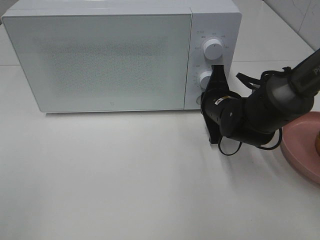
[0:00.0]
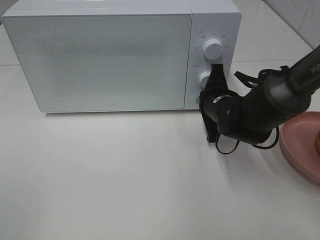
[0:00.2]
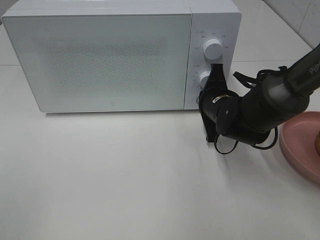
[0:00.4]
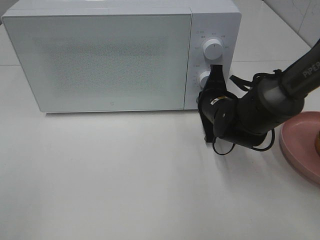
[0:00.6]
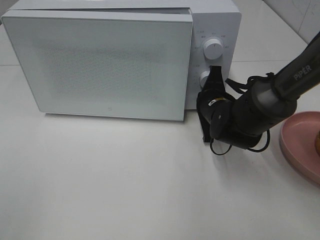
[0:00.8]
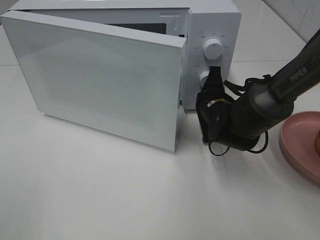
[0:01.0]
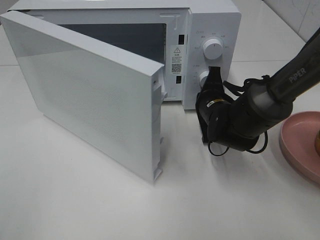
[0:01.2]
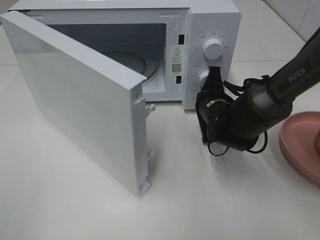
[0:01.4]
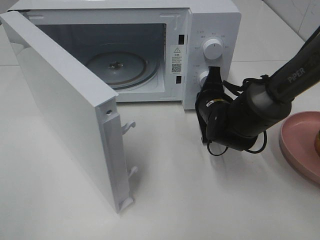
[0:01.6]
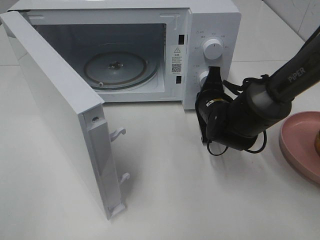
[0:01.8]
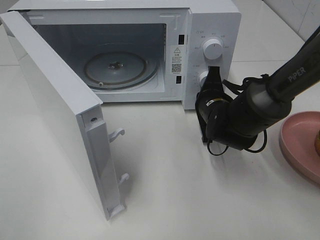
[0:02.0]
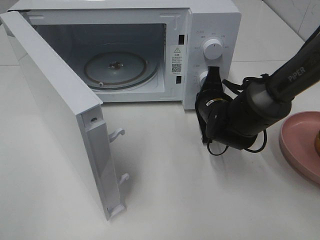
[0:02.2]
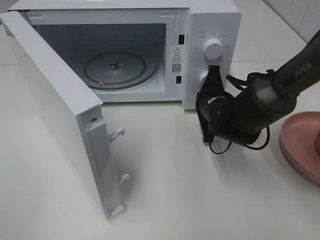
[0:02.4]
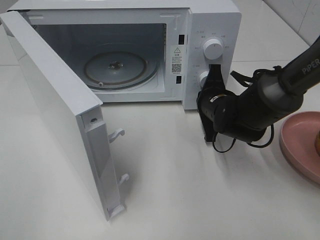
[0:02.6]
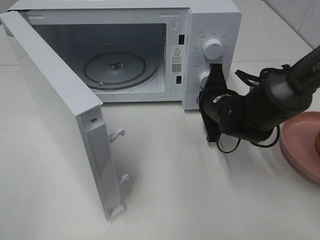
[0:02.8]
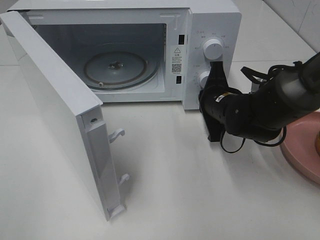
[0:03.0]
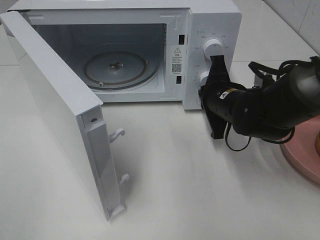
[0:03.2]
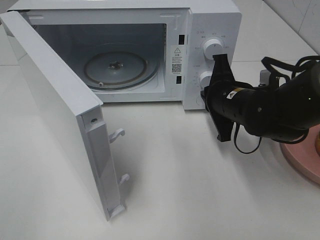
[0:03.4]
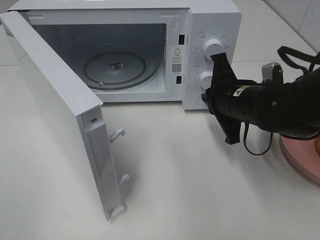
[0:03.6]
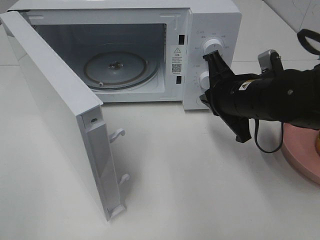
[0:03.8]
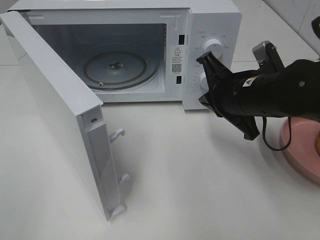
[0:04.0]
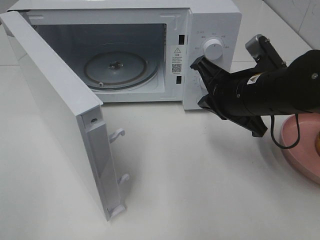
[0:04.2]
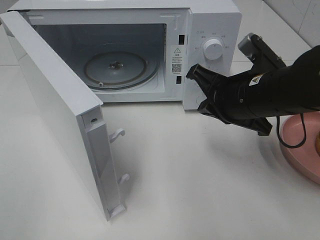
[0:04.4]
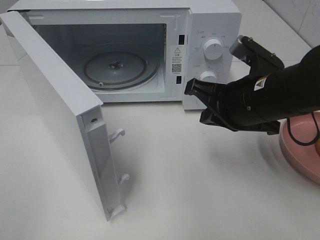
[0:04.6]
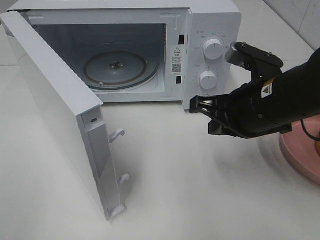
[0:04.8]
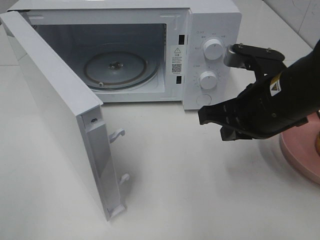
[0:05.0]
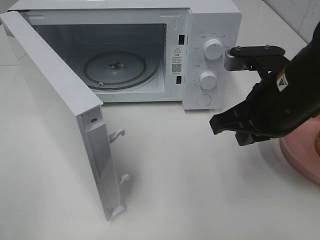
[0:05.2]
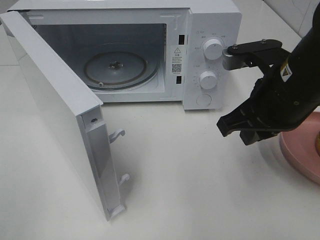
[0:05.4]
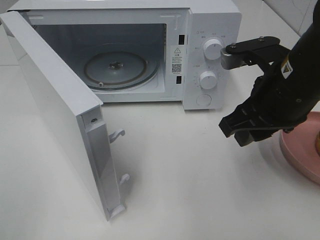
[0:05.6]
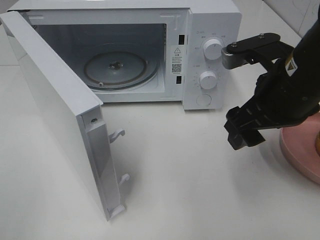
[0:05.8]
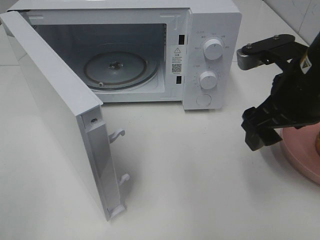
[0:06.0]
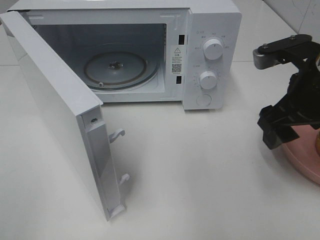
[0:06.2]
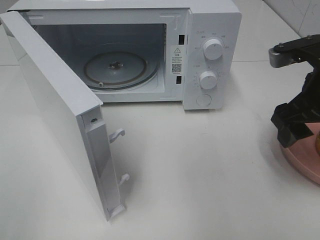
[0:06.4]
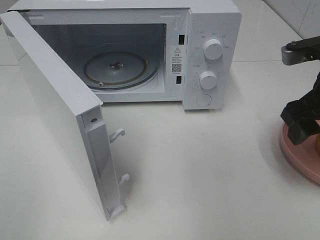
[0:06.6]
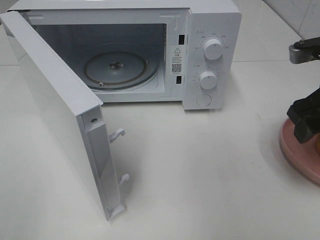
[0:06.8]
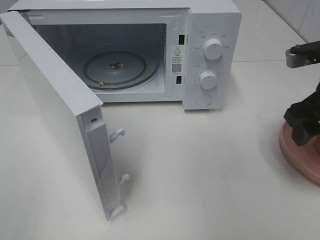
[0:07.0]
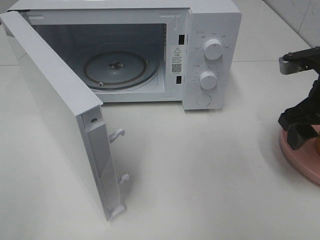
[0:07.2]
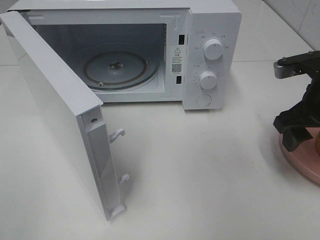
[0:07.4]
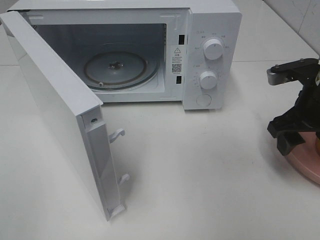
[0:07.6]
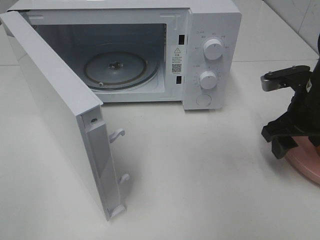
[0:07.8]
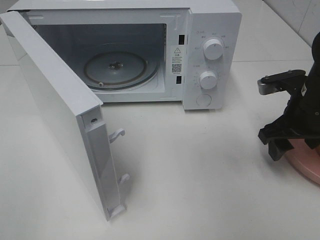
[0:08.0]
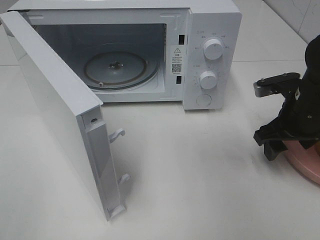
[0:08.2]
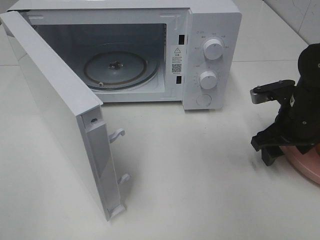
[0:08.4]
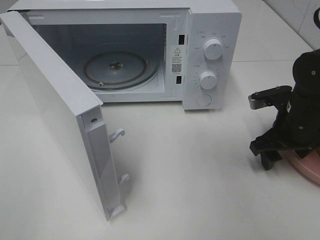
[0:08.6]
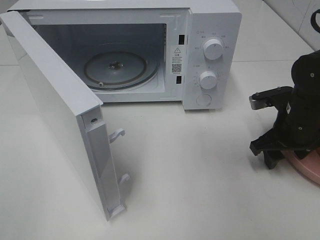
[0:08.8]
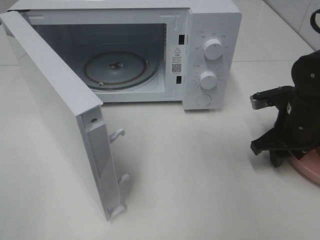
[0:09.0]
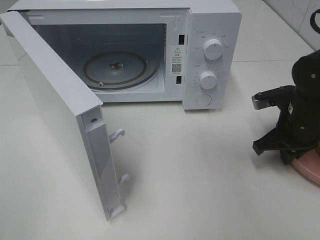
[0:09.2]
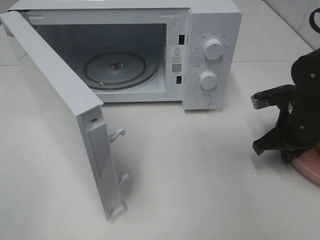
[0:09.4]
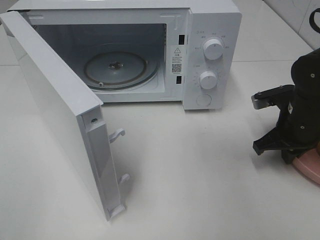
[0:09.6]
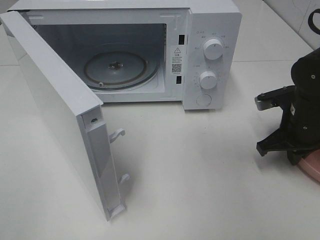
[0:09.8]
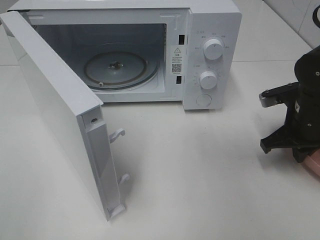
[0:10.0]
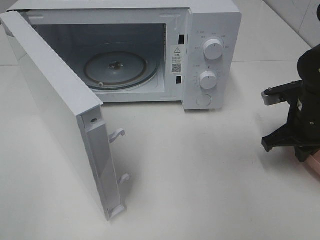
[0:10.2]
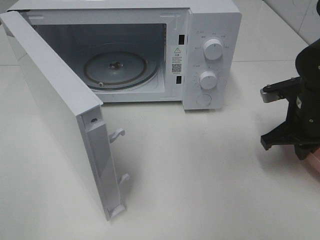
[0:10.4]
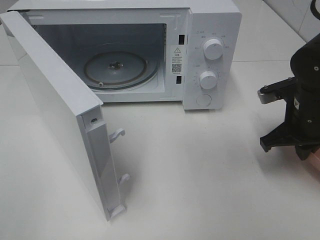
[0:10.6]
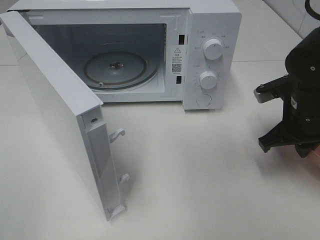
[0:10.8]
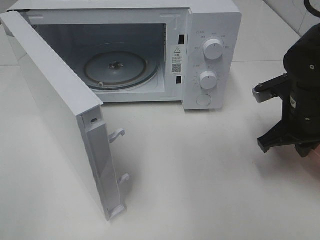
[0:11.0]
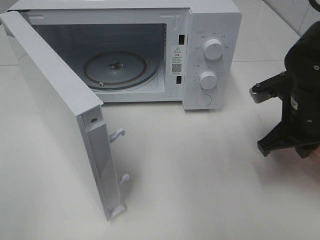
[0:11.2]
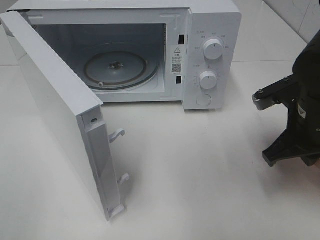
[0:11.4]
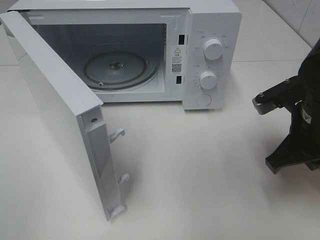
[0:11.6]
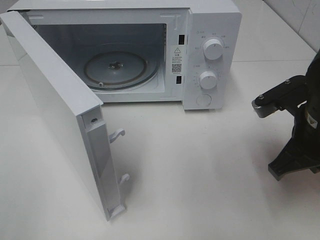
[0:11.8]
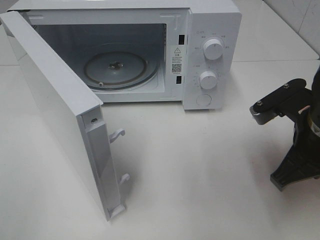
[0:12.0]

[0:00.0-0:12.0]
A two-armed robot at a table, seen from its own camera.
Task of the whole recording: Heat the burger.
Step, 0:00.0 to 0:03.0: Right hand: press the switch.
Step, 0:03.2 to 0:09.2: Right hand: grab the plate with the hamburger.
0:01.6 to 0:03.0: The grippers make only small movements.
0:03.0 to 0:04.4: The right gripper goes some 10 cm upward and backward.
0:04.4 to 0:06.0: The right gripper heads to the right, covering approximately 5 cm, and opens.
0:06.0 to 0:07.6: The right gripper shifts about 10 cm to the right and downward.
0:07.6 to 0:09.0: The right gripper shifts roughly 5 cm downward, and closes its fingers.
0:09.0 to 0:10.4: The right gripper closes its fingers.
0:10.4 to 0:12.0: The right gripper shifts approximately 10 cm backward, upward and to the left.

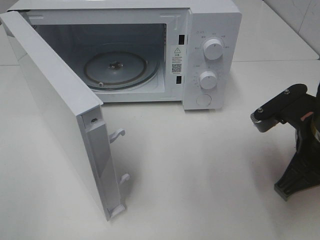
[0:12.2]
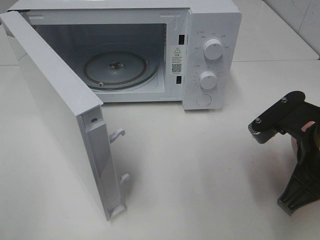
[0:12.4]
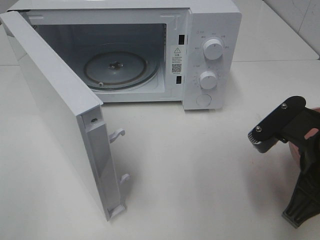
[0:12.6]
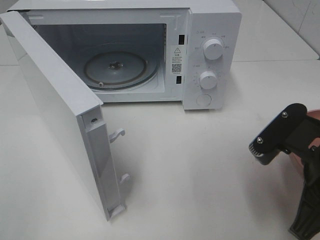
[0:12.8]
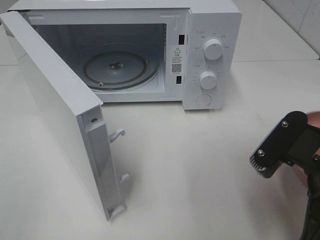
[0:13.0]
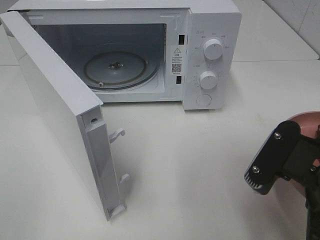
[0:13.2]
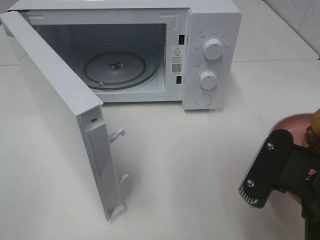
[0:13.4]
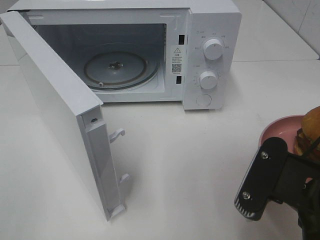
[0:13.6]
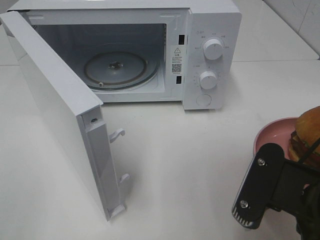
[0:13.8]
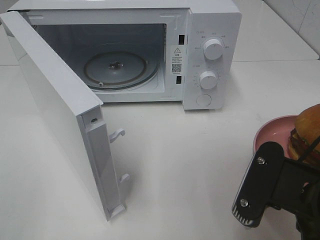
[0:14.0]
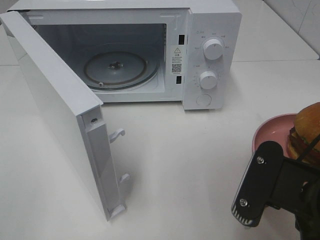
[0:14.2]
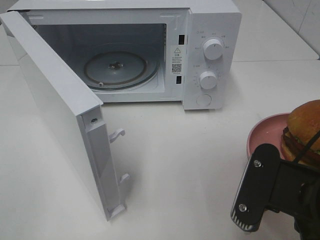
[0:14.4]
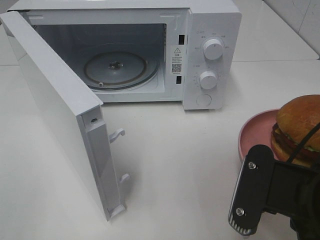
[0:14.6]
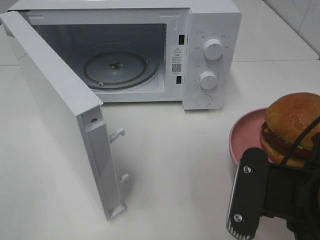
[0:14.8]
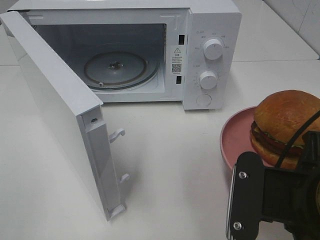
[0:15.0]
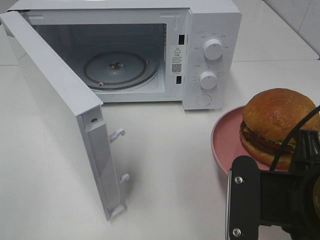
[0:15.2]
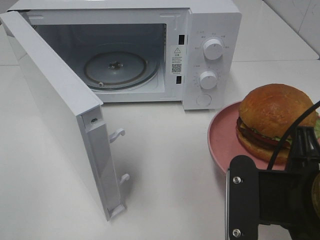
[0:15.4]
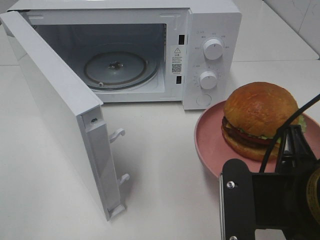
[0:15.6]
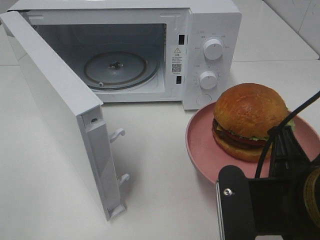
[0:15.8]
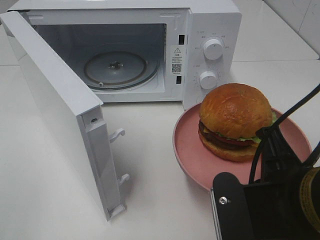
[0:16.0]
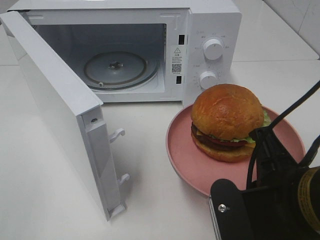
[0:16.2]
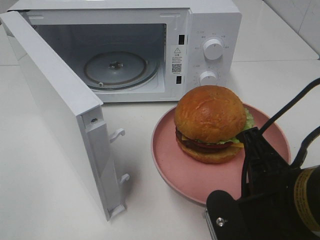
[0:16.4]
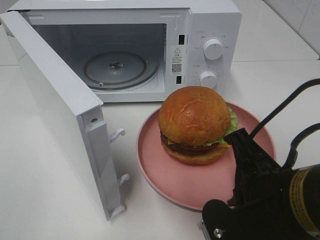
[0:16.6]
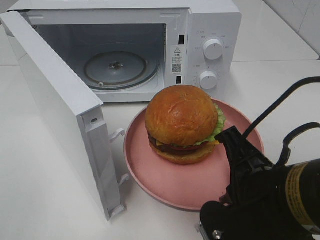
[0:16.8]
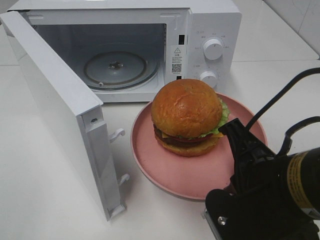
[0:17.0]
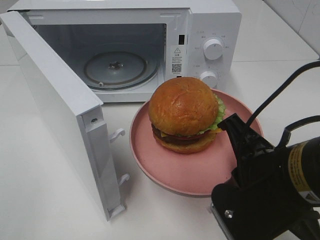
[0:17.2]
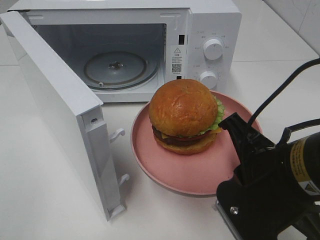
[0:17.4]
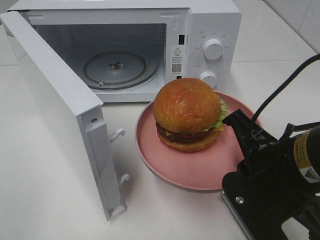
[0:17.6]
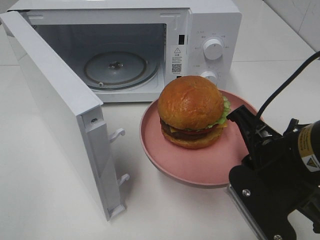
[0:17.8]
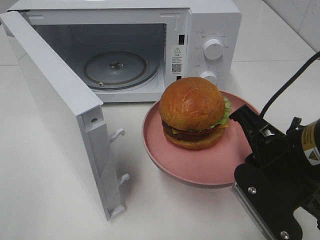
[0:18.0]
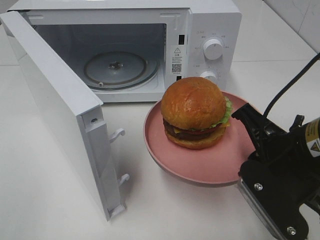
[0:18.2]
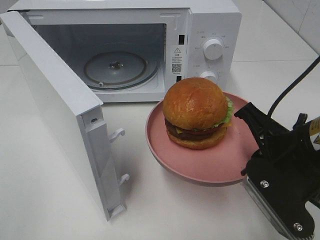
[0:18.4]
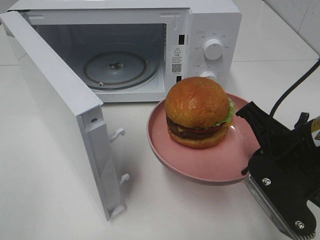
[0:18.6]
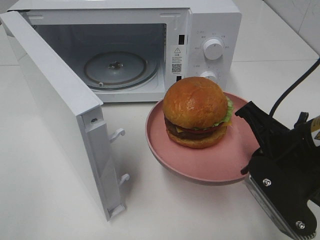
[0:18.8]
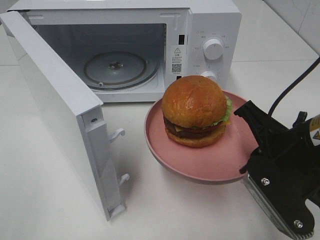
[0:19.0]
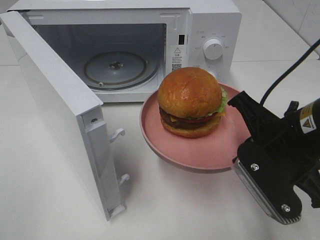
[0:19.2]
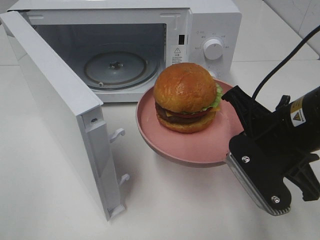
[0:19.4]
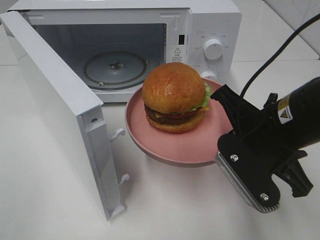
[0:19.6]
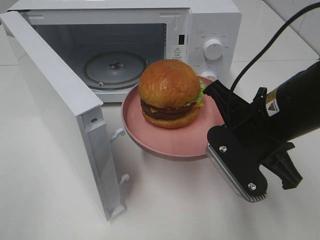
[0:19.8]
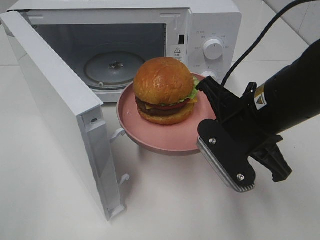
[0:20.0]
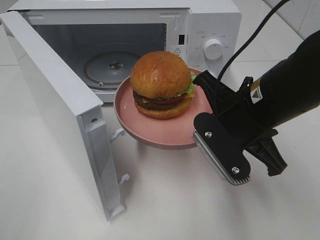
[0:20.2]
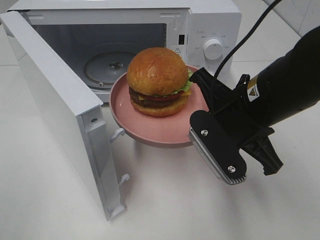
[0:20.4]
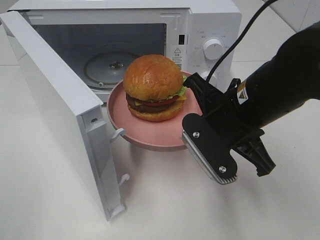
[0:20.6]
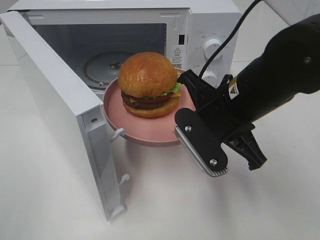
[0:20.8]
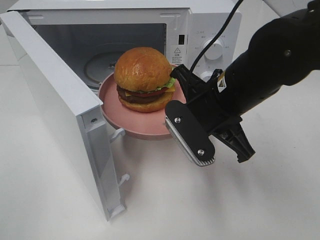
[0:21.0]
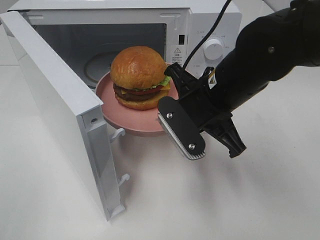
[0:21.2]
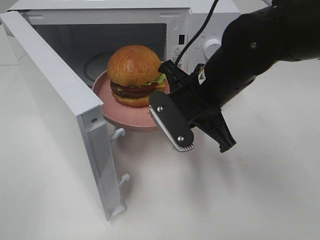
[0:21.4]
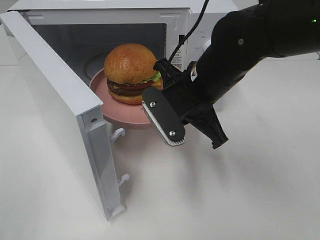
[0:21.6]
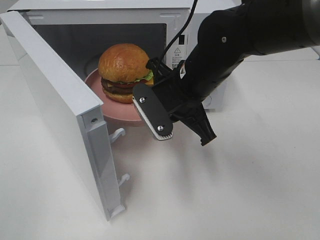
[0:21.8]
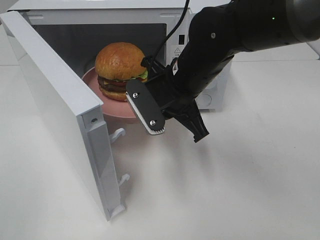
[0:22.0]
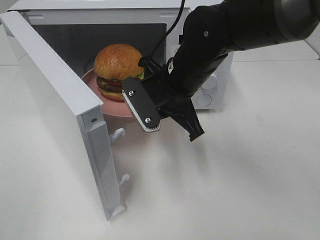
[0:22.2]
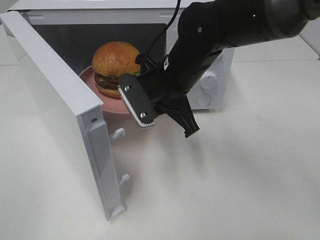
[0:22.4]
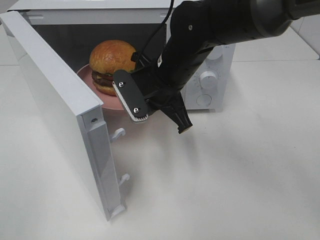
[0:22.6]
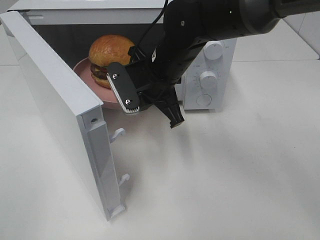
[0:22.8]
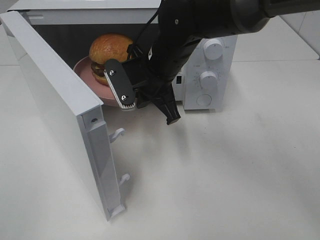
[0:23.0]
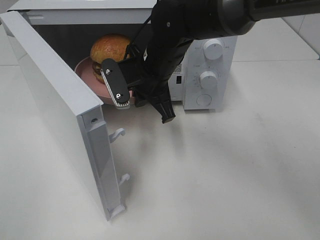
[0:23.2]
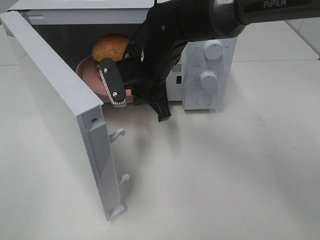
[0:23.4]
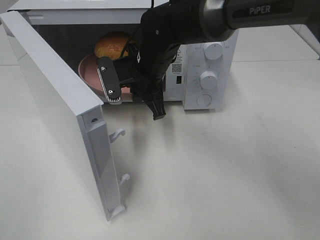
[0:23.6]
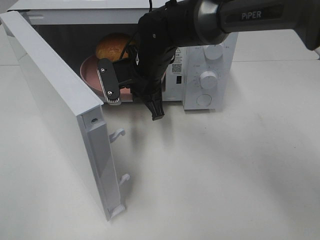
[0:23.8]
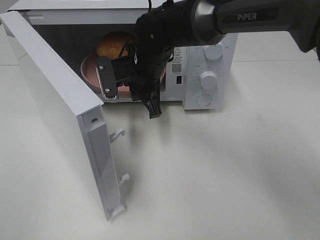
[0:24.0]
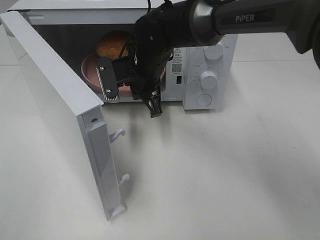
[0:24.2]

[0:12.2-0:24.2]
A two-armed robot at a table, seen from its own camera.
Task of the whole recording: Heat the burger.
0:12.2 to 0:13.8: The right gripper goes approximately 10 cm backward.
0:16.6 to 0:18.2: The right gripper goes roughly 5 cm forward.
0:18.2 to 0:19.8: The right gripper shifts by approximately 5 cm.
0:19.8 to 0:21.2: The right gripper shifts approximately 10 cm forward and to the left.
0:21.2 to 0:22.6: The right gripper heads forward and to the left, covering some 10 cm.
0:22.6 to 0:24.2: The right gripper heads forward, covering some 5 cm.
